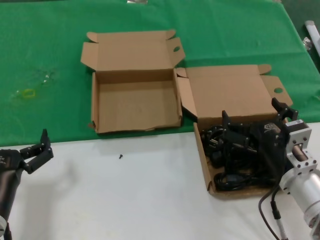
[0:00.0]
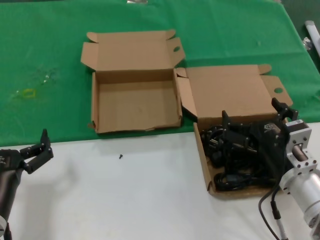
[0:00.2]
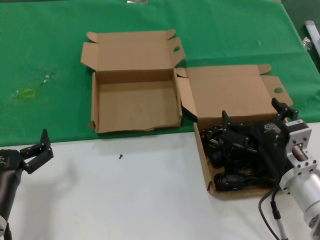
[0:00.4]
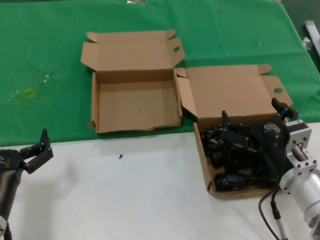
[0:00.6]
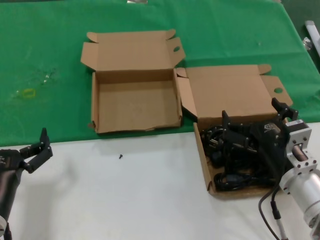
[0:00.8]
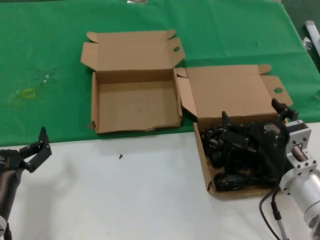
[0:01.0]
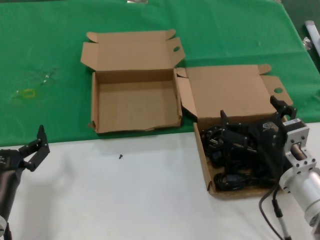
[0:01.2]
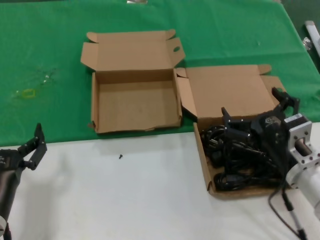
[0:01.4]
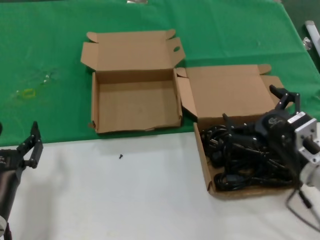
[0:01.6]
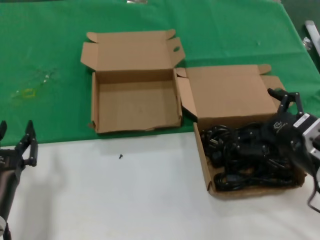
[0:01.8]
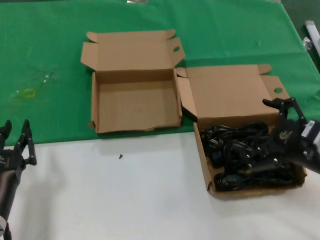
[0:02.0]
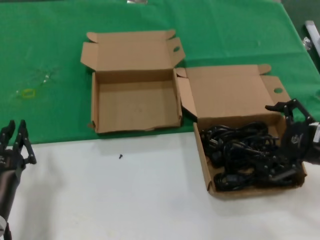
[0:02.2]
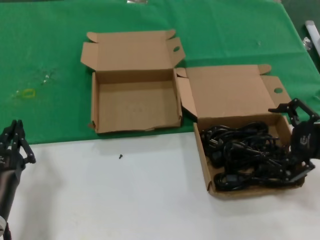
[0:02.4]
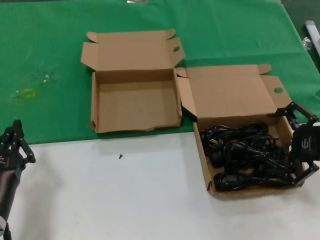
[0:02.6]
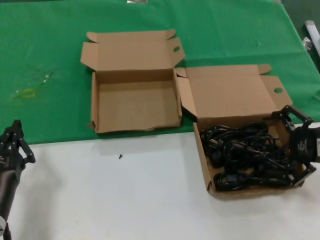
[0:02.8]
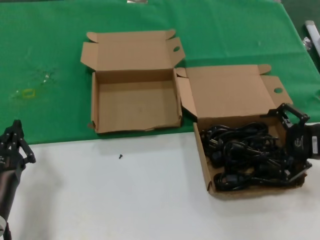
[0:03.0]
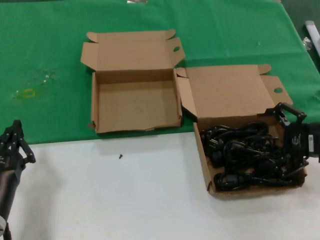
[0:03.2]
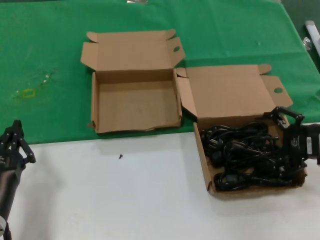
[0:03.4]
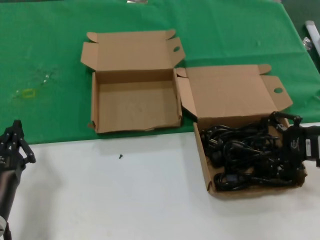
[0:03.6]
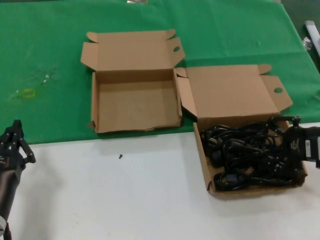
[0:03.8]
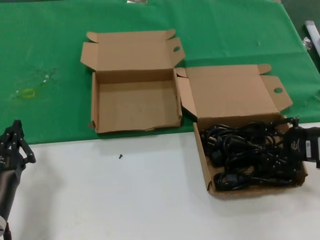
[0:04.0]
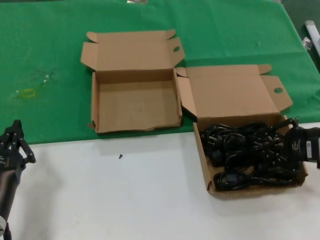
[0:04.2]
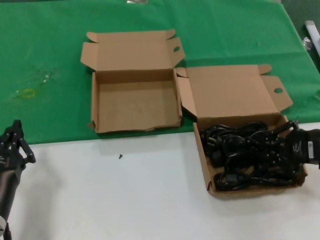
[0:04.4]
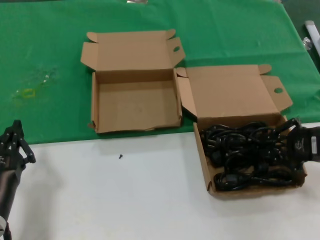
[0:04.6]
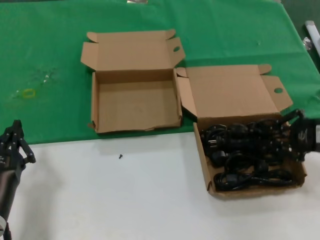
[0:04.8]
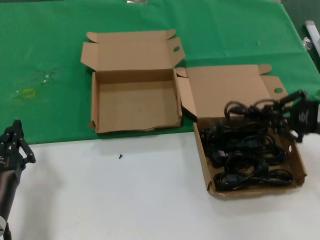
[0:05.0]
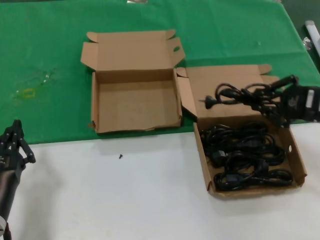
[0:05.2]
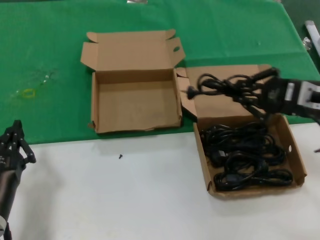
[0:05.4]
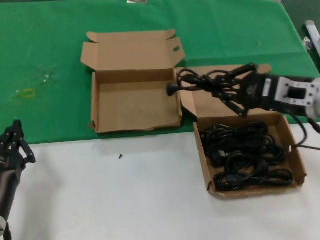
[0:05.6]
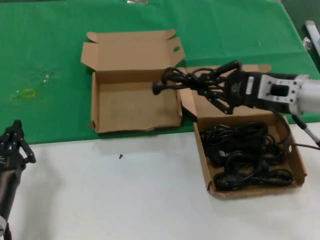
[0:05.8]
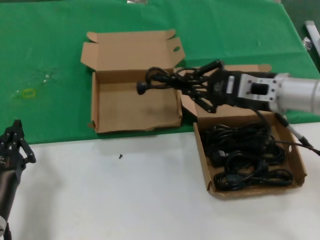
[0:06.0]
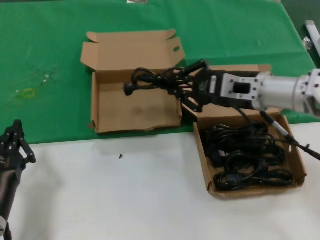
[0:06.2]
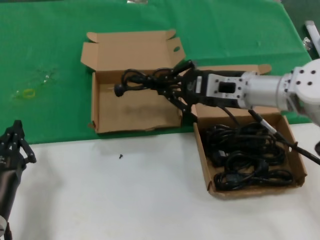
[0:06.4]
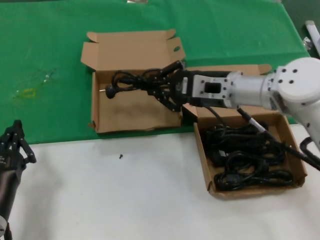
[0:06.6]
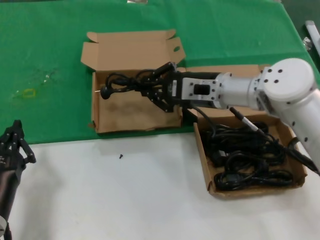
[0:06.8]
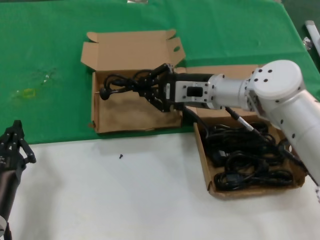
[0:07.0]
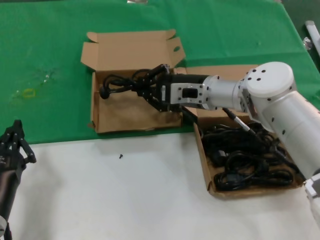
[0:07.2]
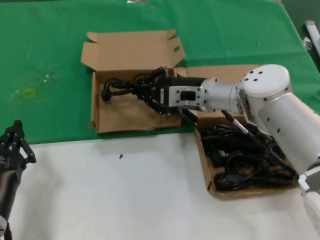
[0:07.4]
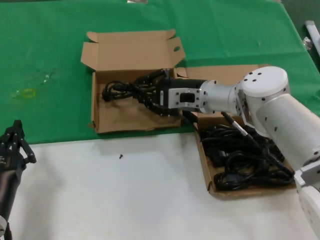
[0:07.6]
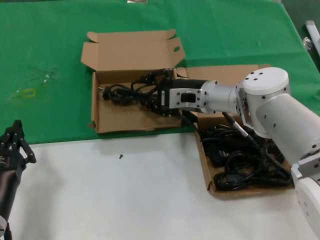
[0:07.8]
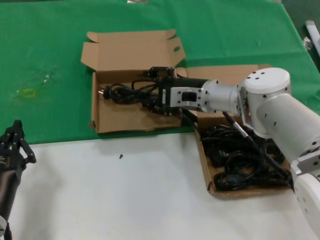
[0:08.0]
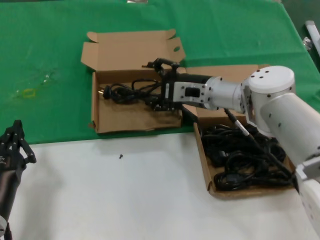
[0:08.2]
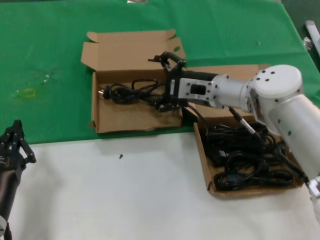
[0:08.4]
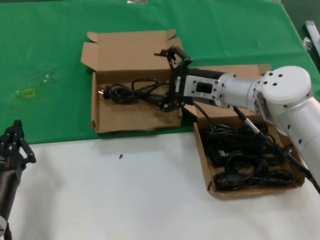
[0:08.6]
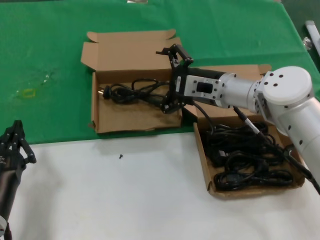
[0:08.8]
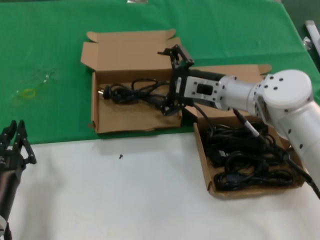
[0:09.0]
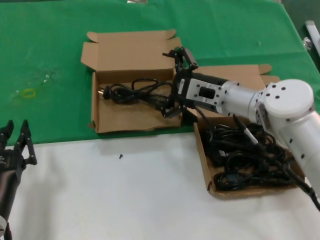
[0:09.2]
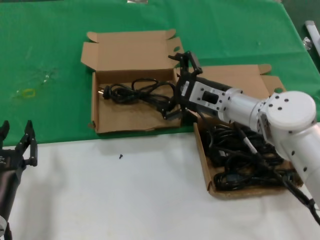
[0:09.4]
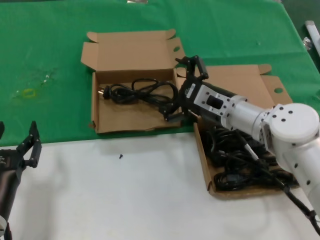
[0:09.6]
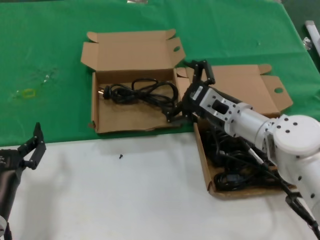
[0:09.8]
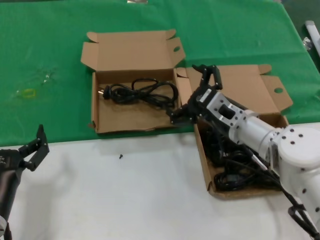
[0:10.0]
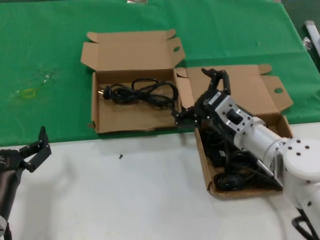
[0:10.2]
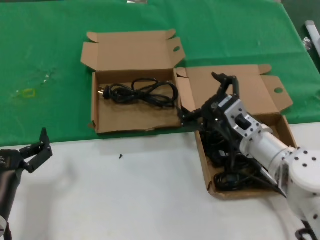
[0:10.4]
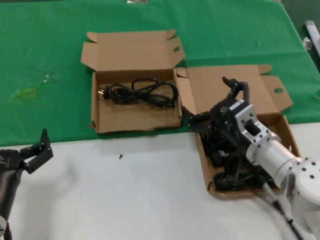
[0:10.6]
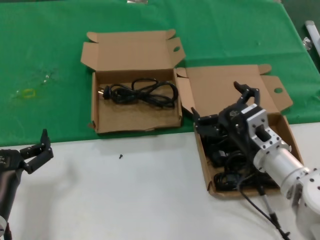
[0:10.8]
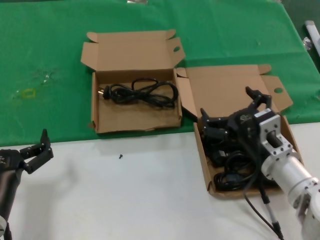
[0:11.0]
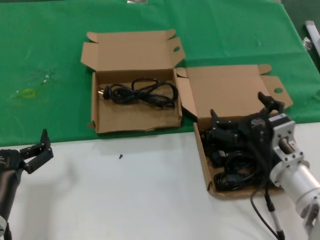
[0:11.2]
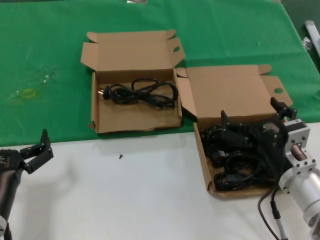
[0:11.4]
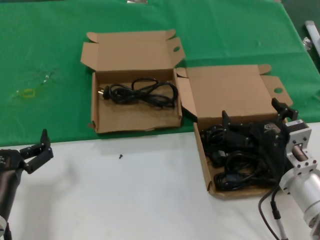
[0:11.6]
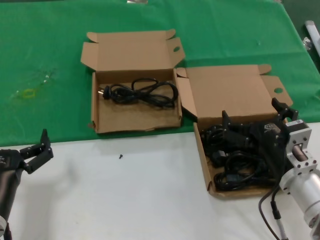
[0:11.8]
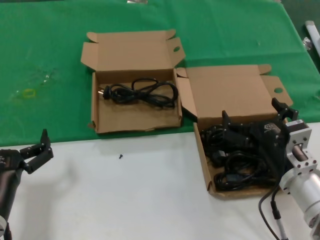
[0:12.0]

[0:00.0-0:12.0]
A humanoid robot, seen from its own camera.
Task of the whole recording: take the parts from the box containing them and put them into an empty box.
Step, 0:00.0 to 0:04.2: Grasp the data cable.
Step, 0:04.4 to 0:08.0: Place the data cable in the another box.
0:00.0 to 0:01.6: There are only small adjustments of the hands.
0:01.6 to 0:03.0: The right hand heads to the right, upward and forward, covering about 15 cm.
0:03.0 to 0:04.4: The hands make only small movements.
0:04.4 to 0:06.0: The right hand goes approximately 15 cm to the left, forward and upward.
0:06.0 to 0:07.6: The right hand shifts about 15 cm to the left, forward and downward.
0:07.6 to 0:09.0: The hands stay close to where they were, moving slightly.
0:09.0 to 0:10.4: The right hand heads backward and downward, covering some 15 cm.
0:10.4 to 0:12.0: The right hand travels backward by roughly 10 cm.

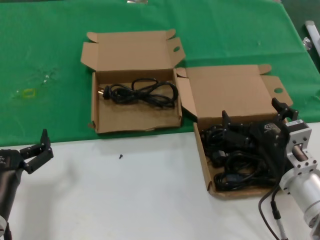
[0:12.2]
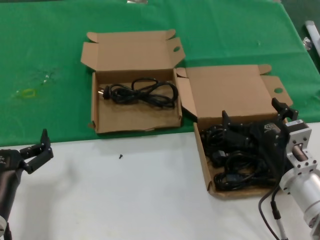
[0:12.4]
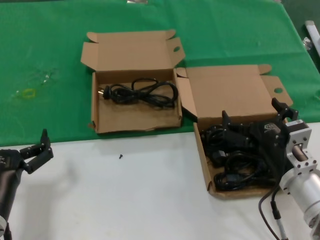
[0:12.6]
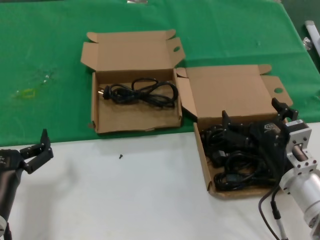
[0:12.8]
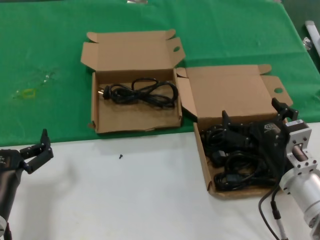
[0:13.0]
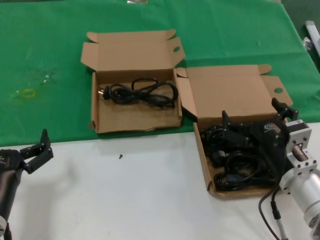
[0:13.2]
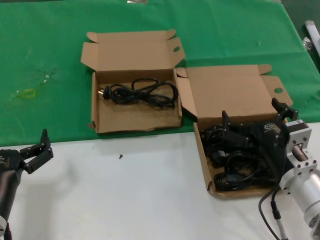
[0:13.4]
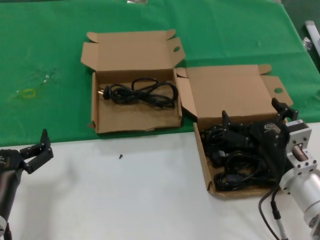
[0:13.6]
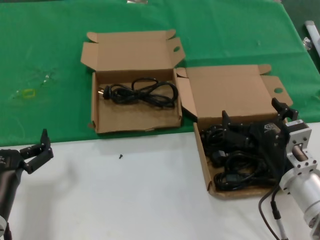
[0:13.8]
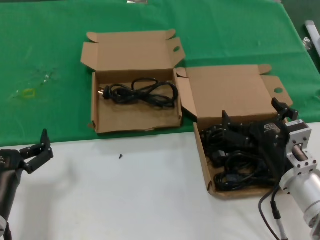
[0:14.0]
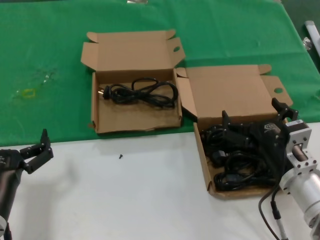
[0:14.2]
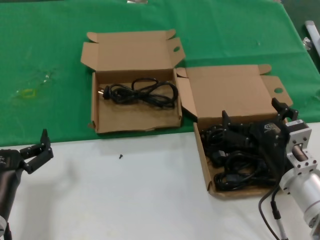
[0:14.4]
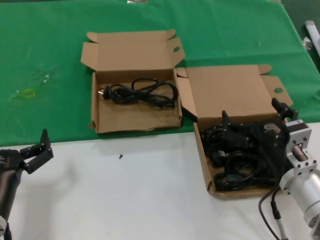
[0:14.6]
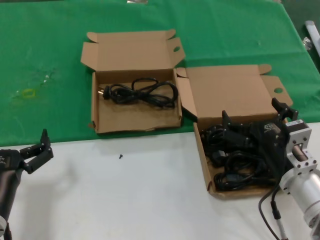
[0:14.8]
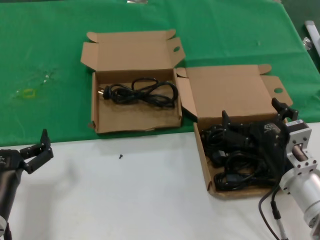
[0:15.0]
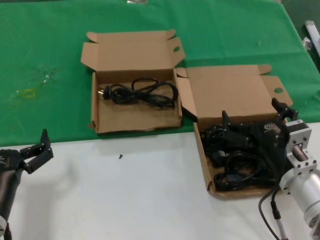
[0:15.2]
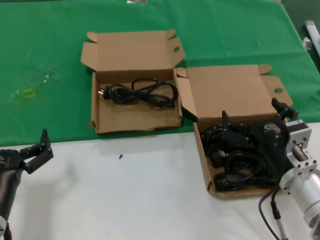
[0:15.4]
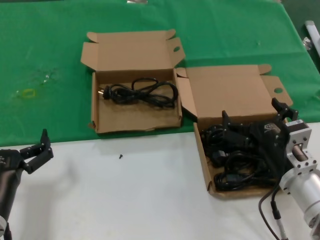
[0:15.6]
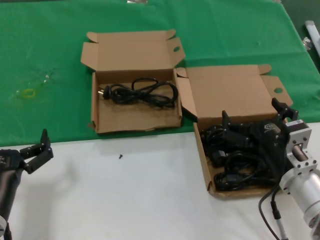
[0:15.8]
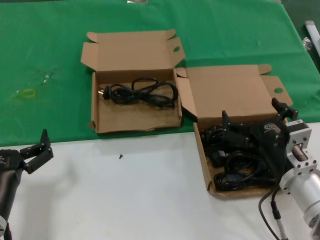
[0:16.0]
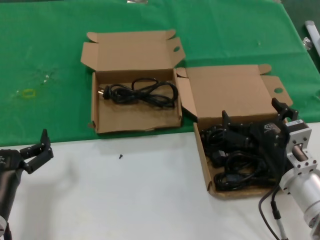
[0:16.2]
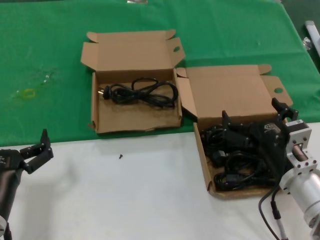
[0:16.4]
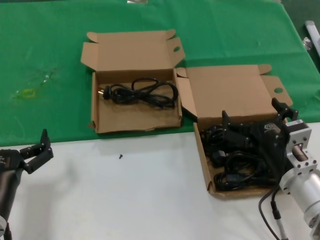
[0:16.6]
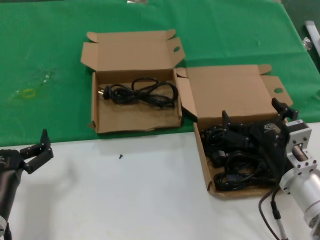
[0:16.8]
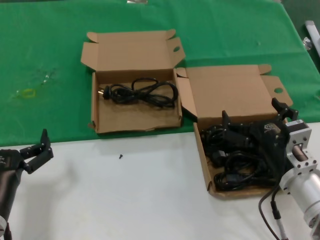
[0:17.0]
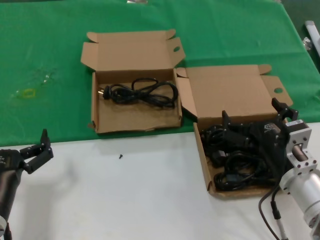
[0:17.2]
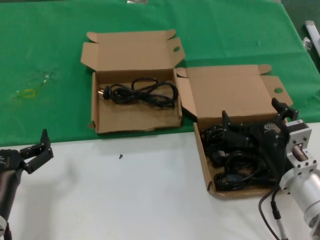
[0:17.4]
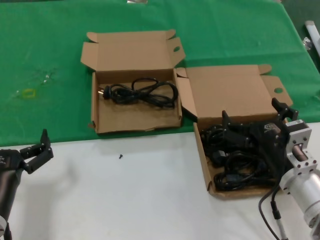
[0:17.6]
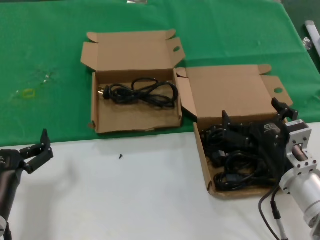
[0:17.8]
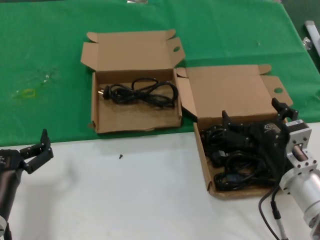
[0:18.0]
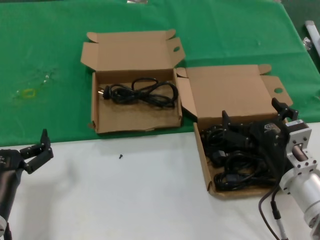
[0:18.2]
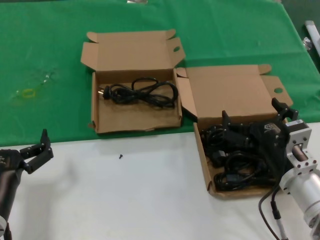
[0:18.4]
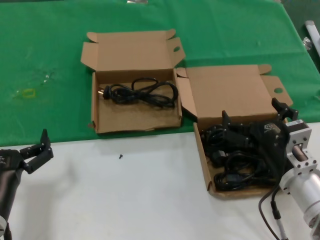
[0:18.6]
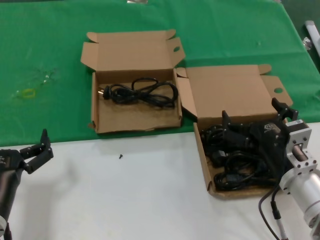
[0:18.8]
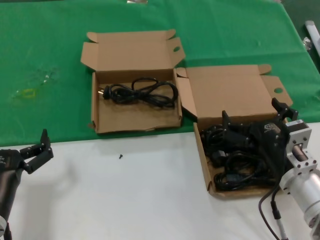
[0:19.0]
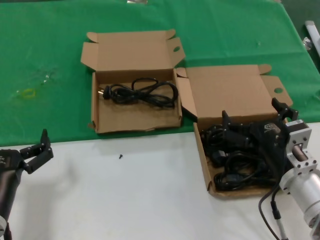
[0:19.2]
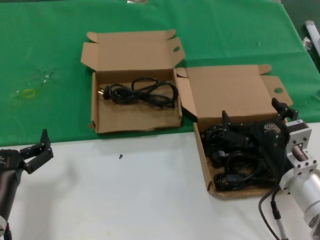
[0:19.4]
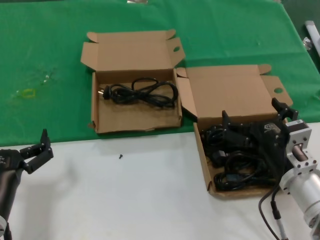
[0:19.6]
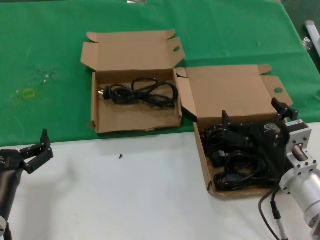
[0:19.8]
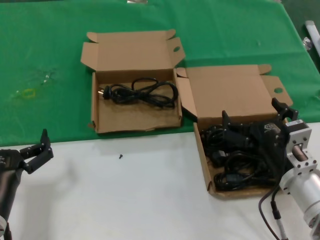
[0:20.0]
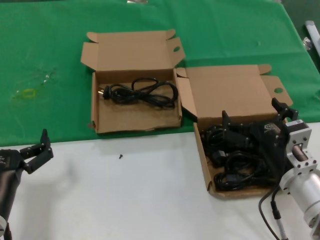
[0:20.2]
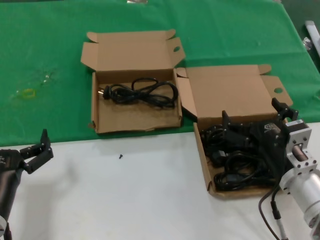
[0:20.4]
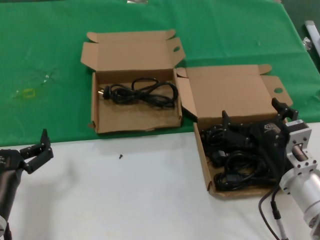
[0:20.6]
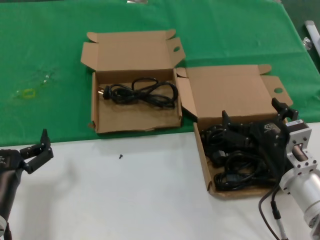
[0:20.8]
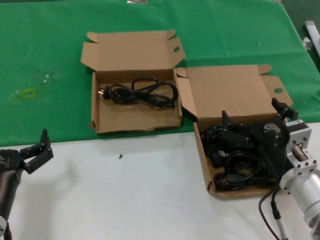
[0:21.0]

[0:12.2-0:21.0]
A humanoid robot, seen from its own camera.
Task of the whole recording: take the parts from the box containing them and put them into an empty box.
0:12.2 to 0:21.0: Neither hand changes place.

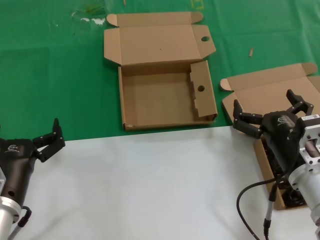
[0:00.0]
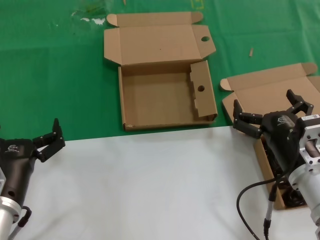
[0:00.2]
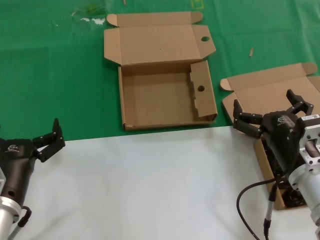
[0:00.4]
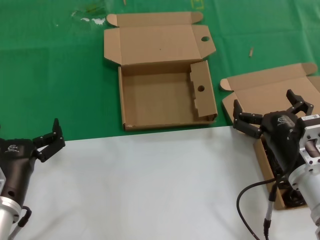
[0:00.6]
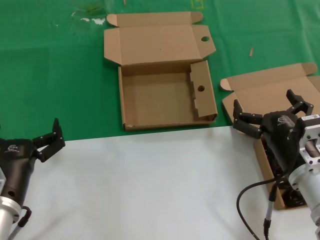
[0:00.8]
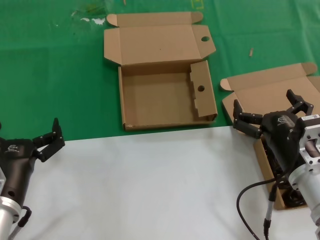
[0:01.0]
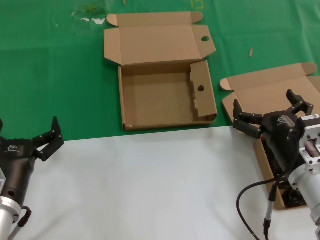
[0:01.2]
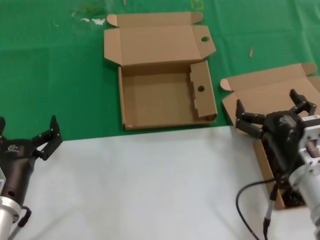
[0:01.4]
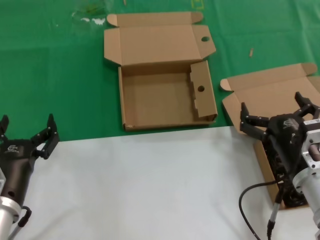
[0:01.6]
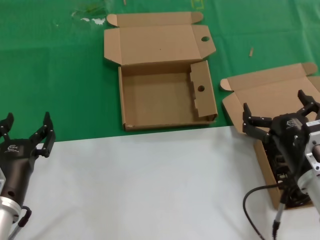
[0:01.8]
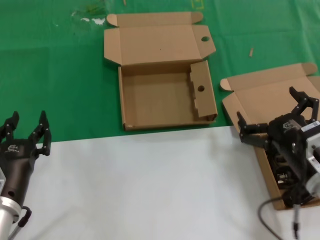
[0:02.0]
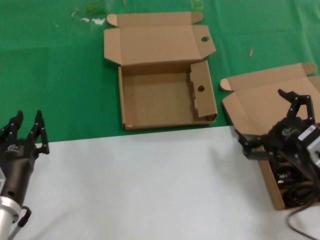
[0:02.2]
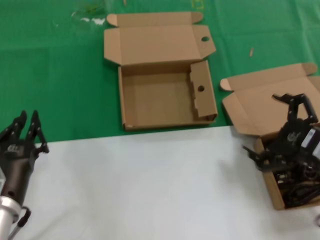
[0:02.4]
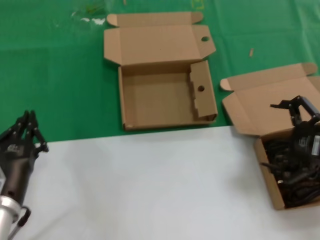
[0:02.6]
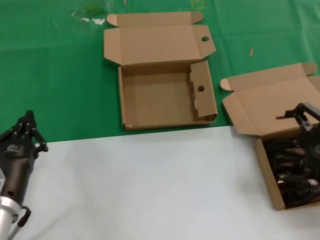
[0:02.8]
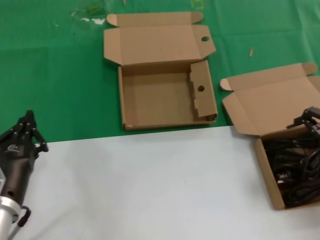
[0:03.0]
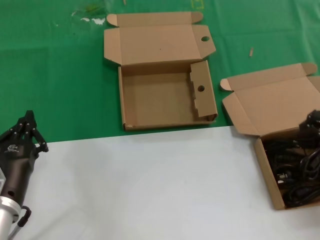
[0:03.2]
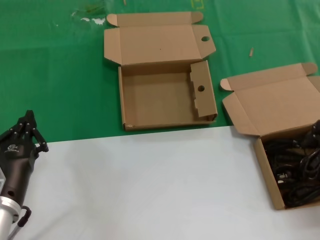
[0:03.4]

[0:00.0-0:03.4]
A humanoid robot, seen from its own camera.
Task of the whole recording: take the parts from the box containing them and put them into an empty box.
0:00.0 to 0:01.6: Both hands stay about where they are.
0:01.6 to 0:03.4: The right hand shifts approximately 25 cm upward and to the right.
